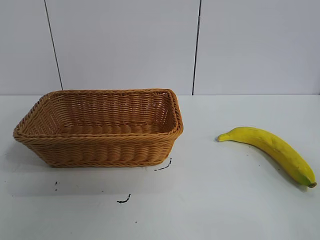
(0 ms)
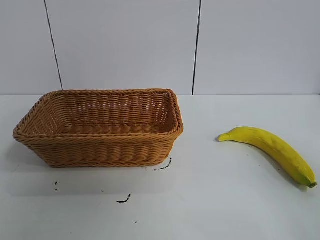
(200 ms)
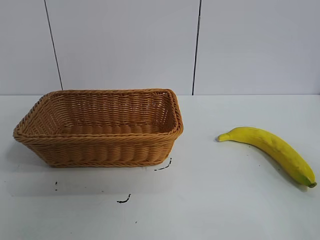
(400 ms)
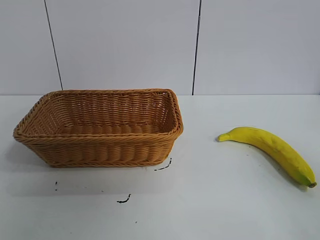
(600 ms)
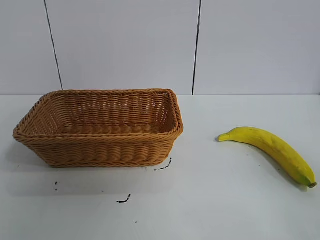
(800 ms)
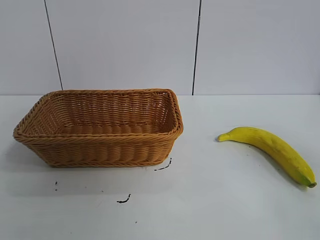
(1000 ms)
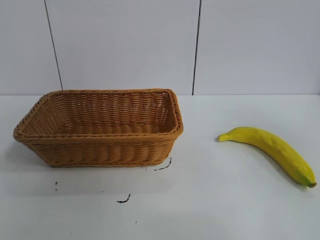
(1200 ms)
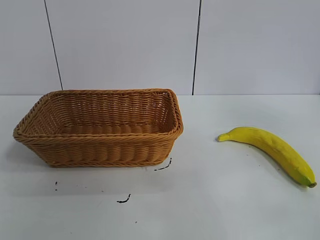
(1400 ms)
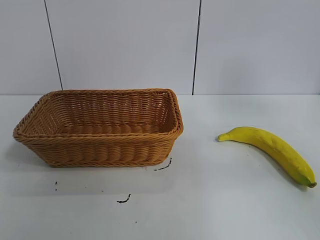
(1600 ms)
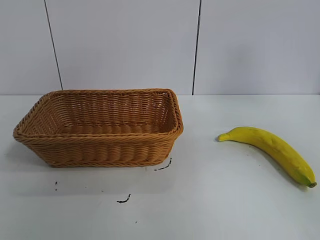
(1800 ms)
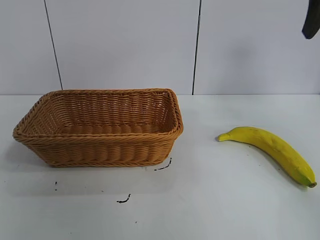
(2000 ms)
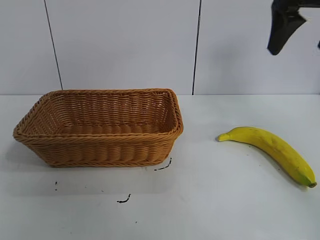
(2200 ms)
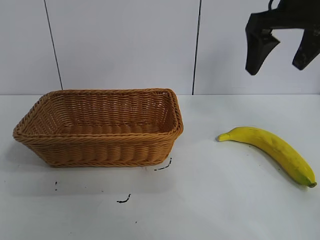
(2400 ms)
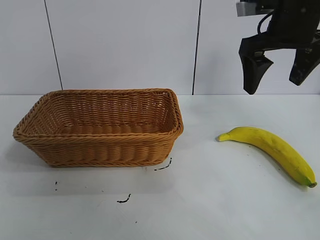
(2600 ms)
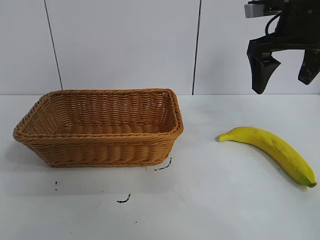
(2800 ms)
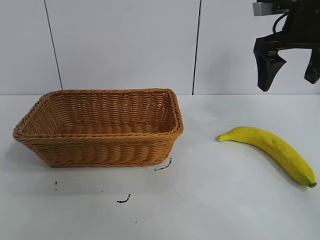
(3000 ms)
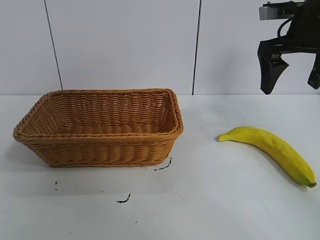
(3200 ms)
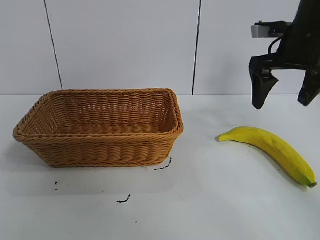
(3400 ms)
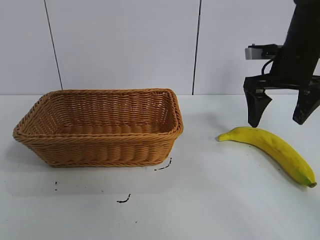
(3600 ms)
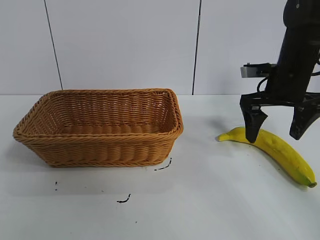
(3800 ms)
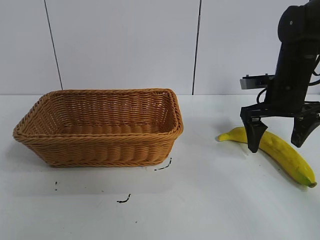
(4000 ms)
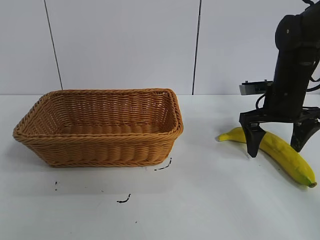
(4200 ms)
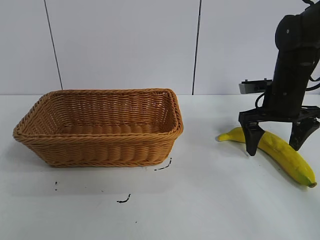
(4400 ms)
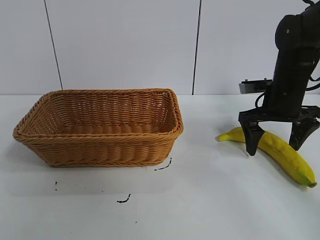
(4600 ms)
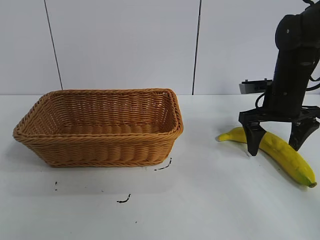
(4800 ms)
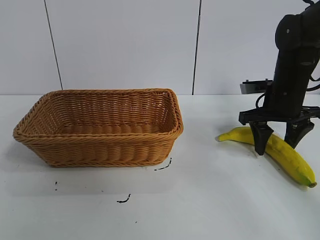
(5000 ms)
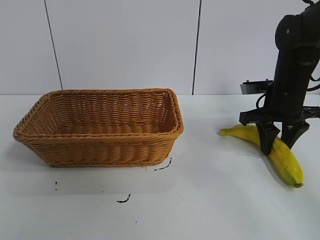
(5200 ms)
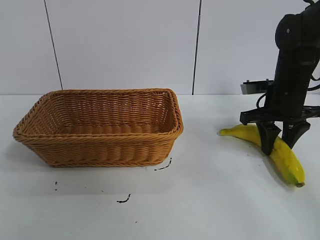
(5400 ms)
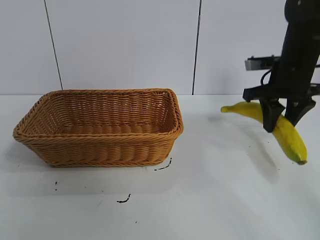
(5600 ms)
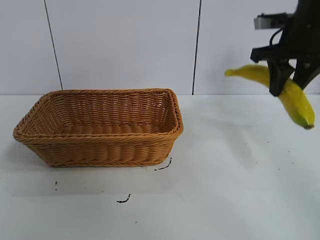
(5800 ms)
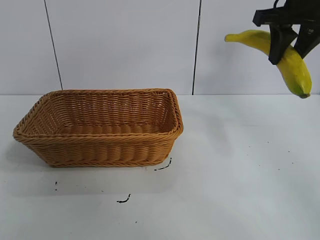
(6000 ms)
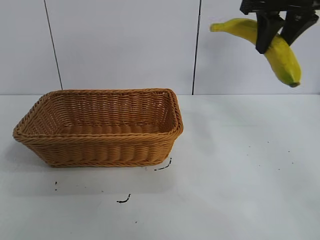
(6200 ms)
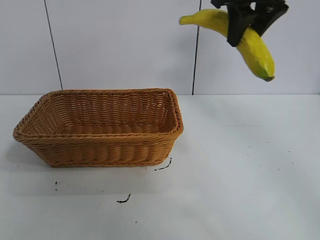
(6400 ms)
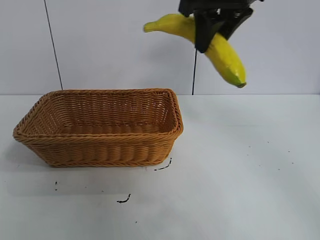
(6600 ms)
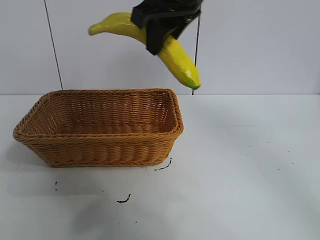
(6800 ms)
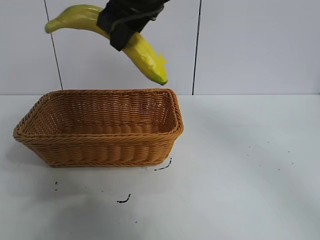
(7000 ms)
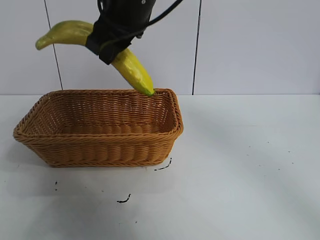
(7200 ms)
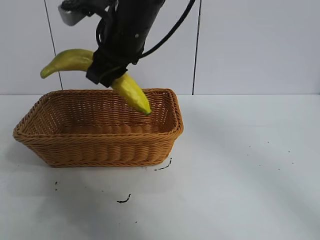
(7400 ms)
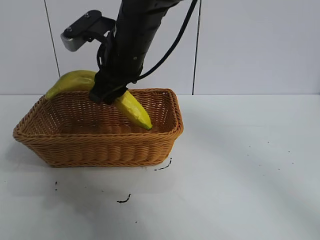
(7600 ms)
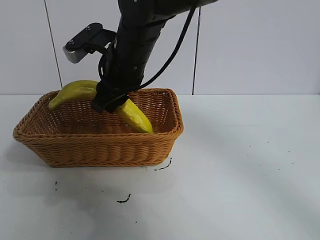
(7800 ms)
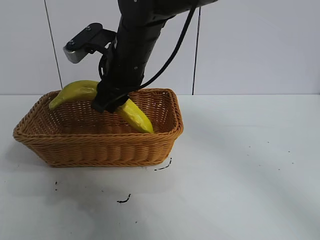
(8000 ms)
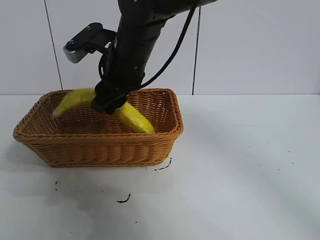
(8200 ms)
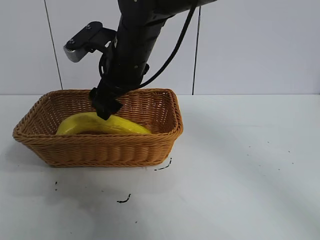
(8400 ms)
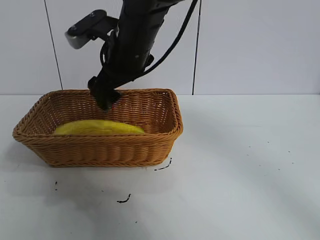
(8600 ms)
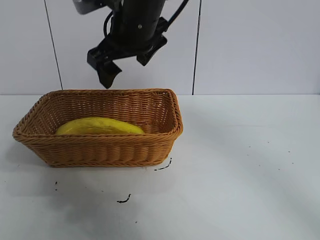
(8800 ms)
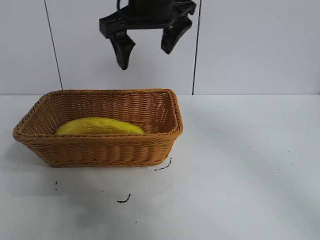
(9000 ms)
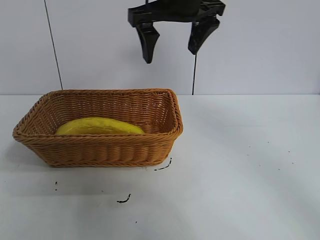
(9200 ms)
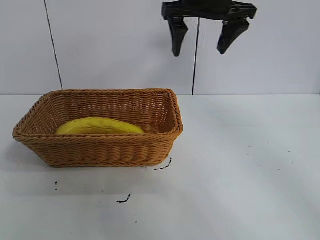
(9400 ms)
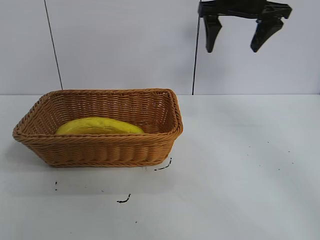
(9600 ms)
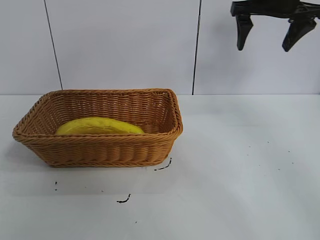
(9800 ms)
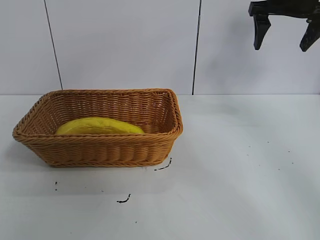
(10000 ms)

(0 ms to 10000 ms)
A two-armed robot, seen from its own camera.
Task of the whole recording: pick up the banana and put it into the basket.
Step, 2000 ms - 5400 ms: Grasp the banana with right gripper.
Step, 5600 ms - 8400 ms: Place the banana in the basket with right gripper.
